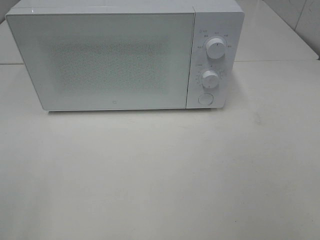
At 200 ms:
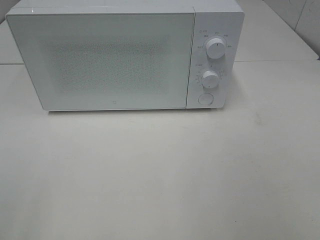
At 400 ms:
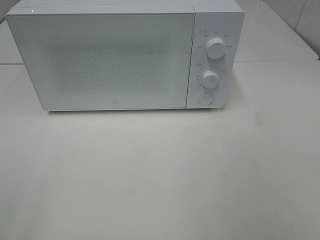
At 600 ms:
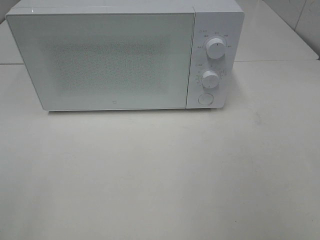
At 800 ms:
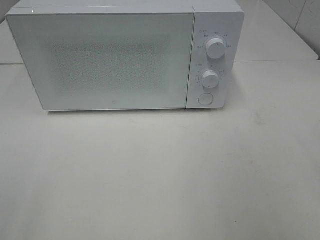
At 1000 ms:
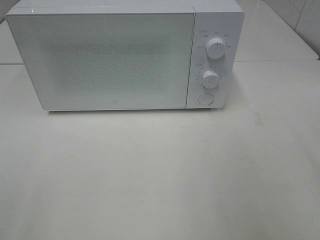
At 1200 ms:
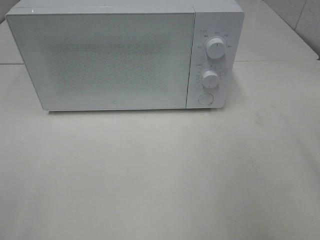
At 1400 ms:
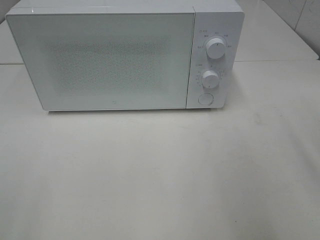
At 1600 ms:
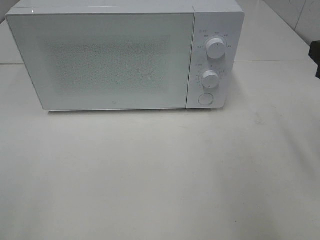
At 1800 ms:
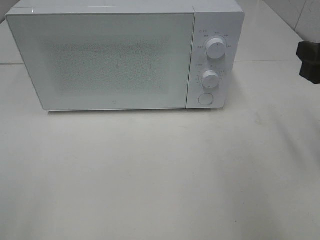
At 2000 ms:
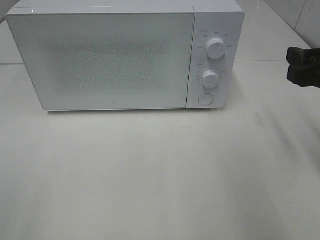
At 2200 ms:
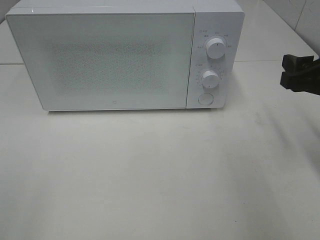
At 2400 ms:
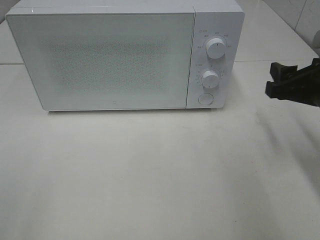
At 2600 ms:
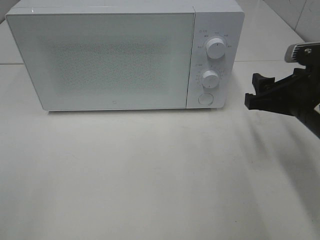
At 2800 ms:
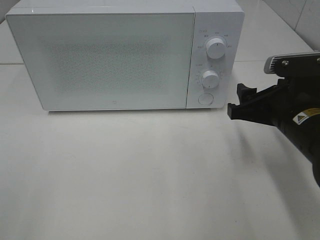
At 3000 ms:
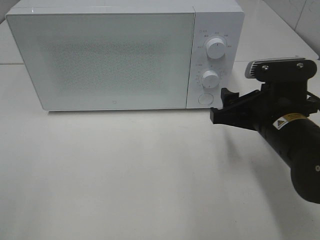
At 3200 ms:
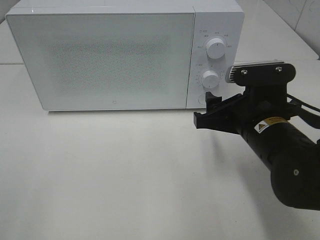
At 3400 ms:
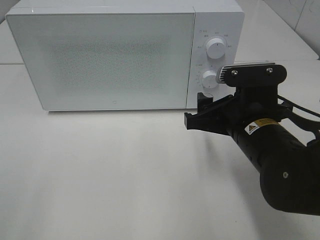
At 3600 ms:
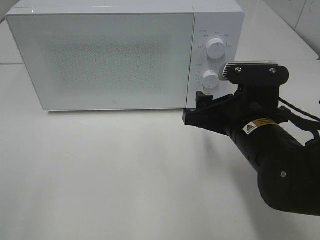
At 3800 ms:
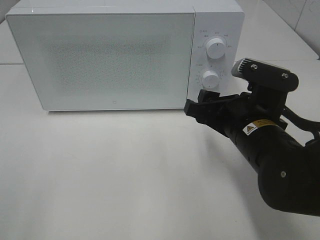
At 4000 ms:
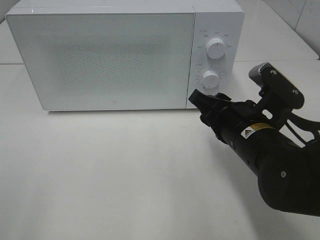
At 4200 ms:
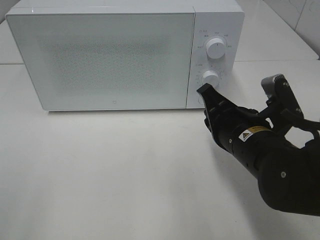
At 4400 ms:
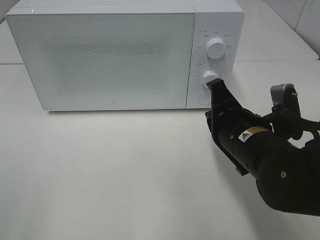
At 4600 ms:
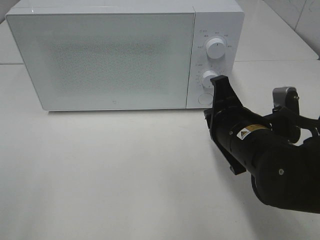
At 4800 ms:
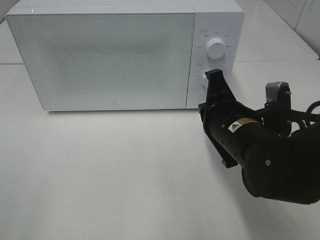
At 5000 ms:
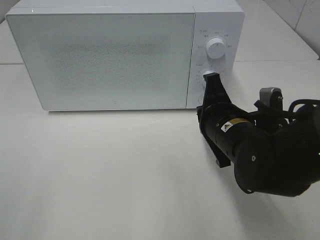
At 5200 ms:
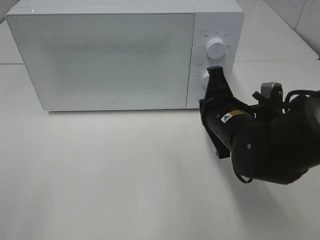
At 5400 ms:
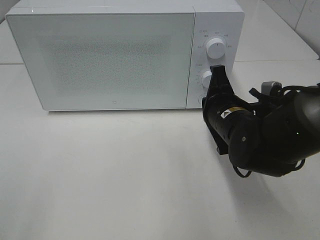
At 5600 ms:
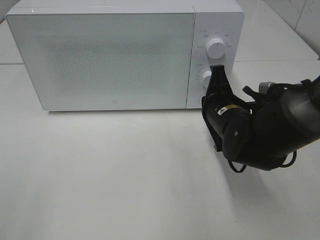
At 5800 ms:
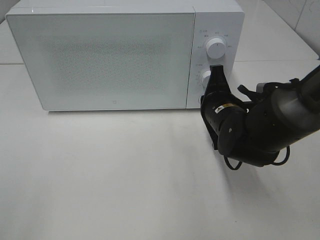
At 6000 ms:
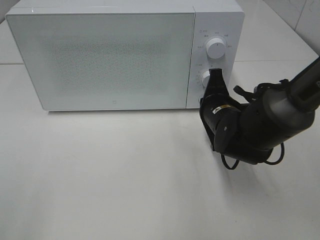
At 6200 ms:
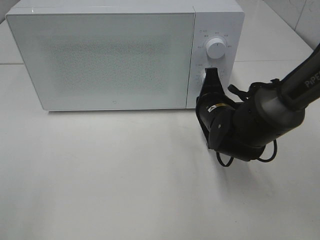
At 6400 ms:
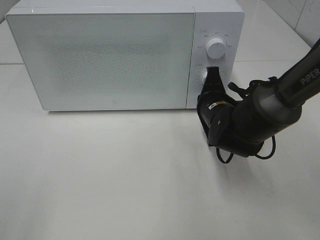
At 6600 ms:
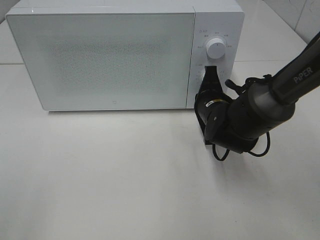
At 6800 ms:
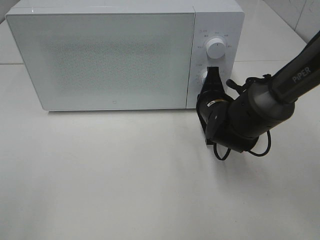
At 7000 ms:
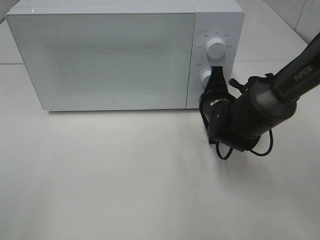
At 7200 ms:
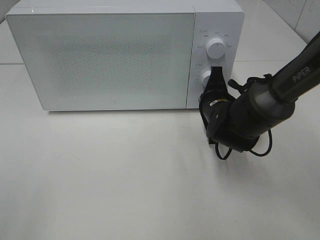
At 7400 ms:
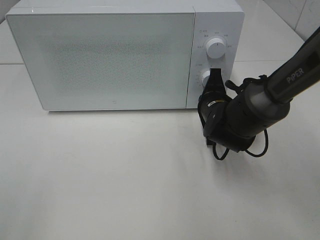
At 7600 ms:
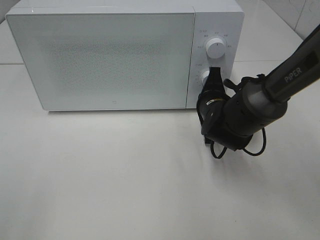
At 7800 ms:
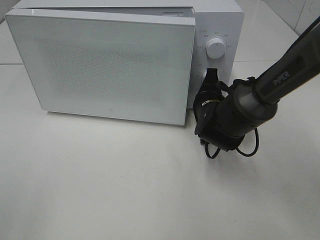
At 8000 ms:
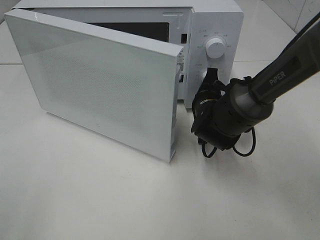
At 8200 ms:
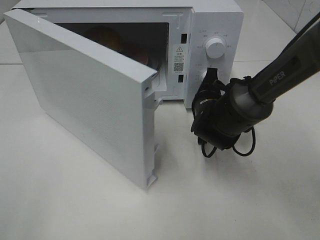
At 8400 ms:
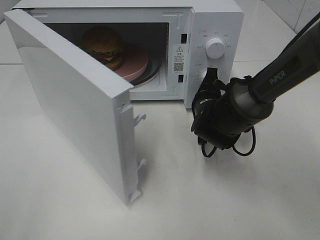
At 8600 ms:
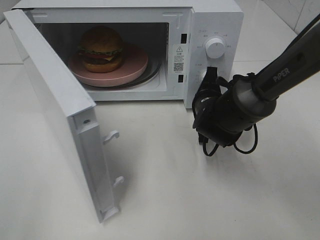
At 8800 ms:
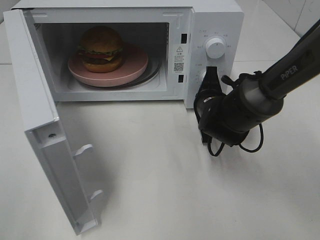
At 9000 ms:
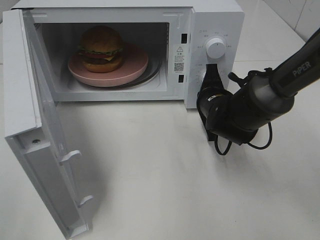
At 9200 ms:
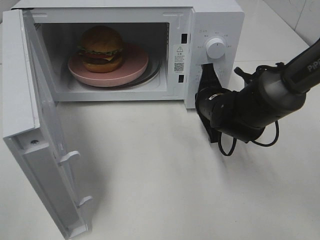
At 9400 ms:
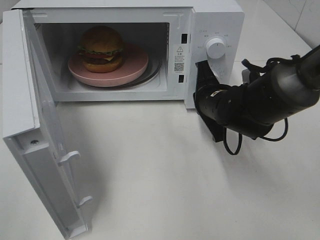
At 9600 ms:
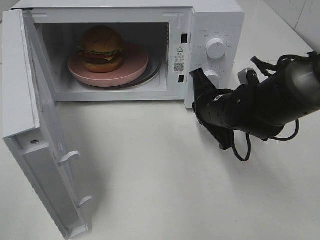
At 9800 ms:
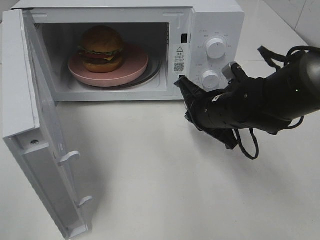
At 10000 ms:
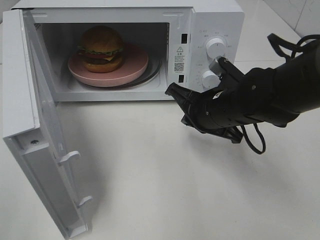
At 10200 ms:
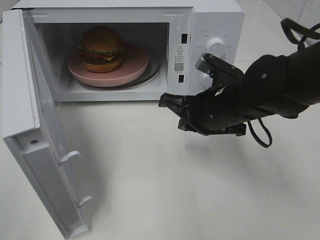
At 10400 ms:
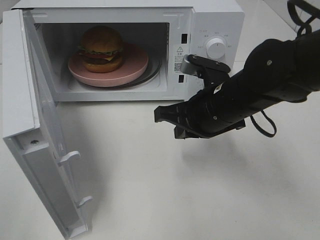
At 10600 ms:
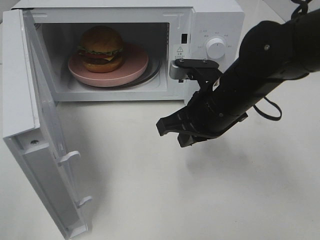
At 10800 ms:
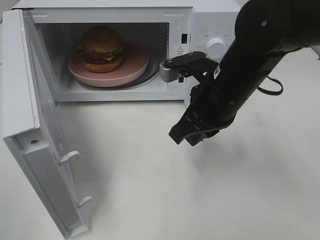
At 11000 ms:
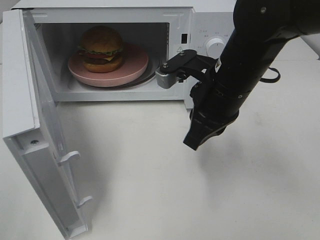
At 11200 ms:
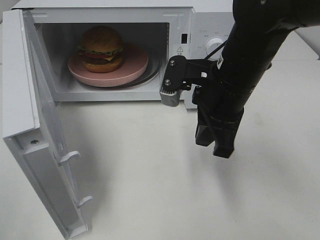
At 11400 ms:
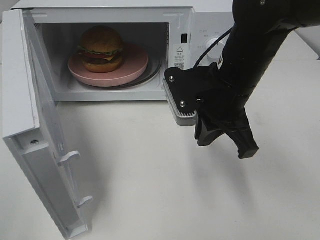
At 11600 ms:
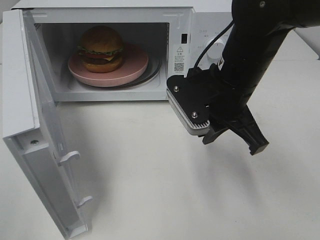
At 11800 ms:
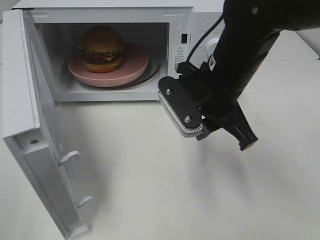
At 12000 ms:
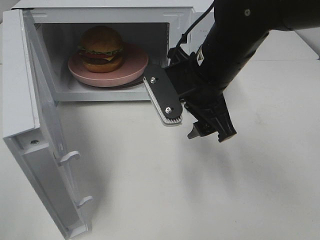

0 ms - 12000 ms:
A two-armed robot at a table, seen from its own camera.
Task of the whole recording: Heat the burger.
Step, 0 ms - 9200 ms: Right hand: press the switch.
1600 ms - 3000 ms: The right gripper travels downward and to the left by about 15 cm.
3000 ms - 4400 ms: The right gripper closes its fingers.
4400 ms - 6000 ms: The right gripper is displaced forward by about 10 cm.
6000 ms - 7600 ms: The grippers make only small movements.
9000 ms - 10400 ms: The right gripper shifts approximately 10 cm upward and backward.
10400 ms - 12000 ms: The right gripper moves upward, approximately 5 cm, and opens up.

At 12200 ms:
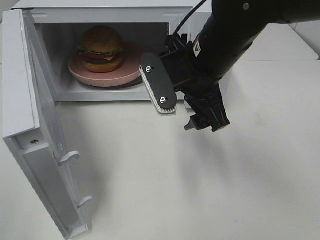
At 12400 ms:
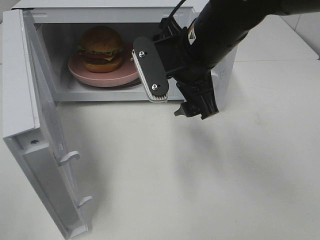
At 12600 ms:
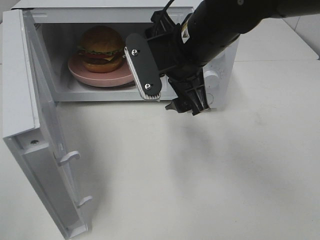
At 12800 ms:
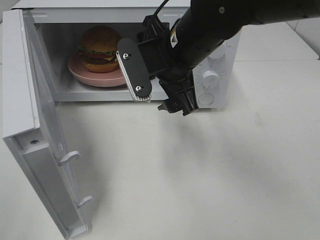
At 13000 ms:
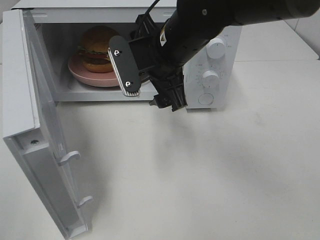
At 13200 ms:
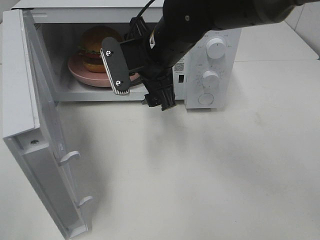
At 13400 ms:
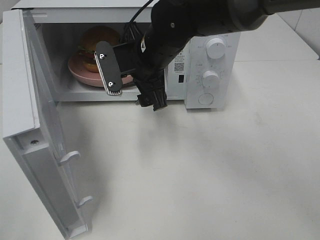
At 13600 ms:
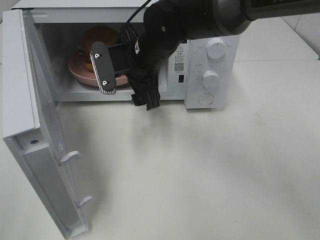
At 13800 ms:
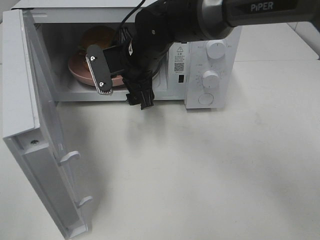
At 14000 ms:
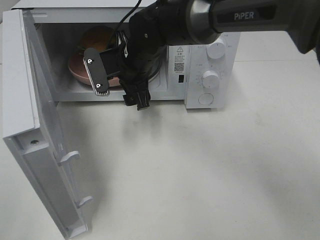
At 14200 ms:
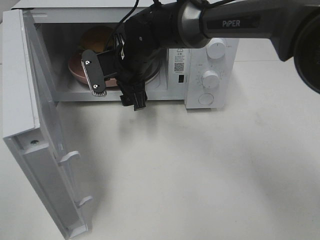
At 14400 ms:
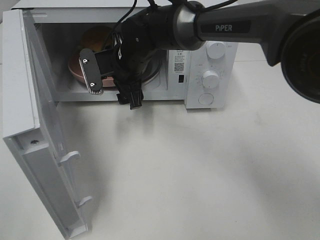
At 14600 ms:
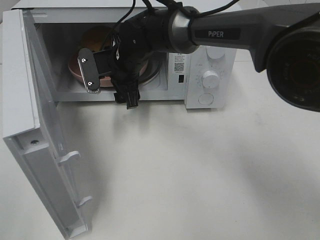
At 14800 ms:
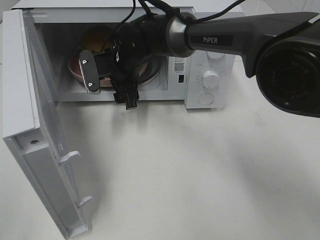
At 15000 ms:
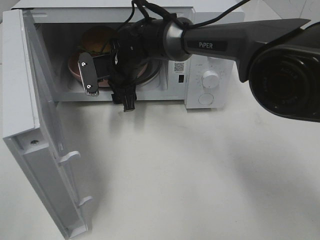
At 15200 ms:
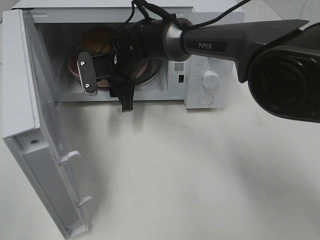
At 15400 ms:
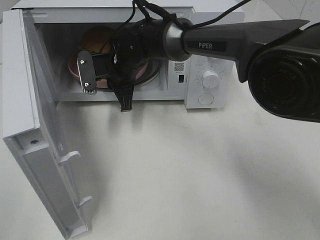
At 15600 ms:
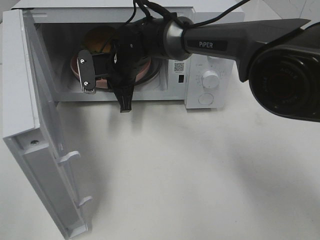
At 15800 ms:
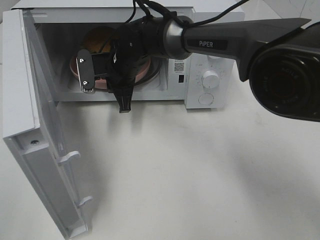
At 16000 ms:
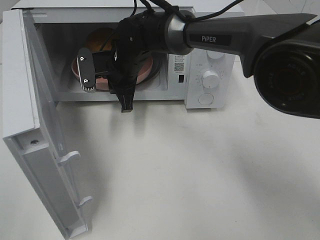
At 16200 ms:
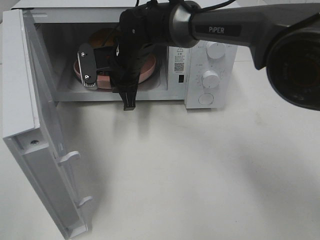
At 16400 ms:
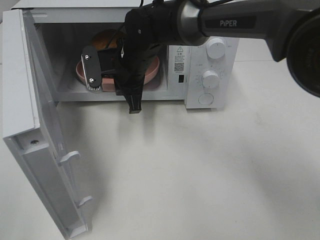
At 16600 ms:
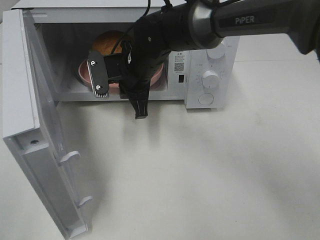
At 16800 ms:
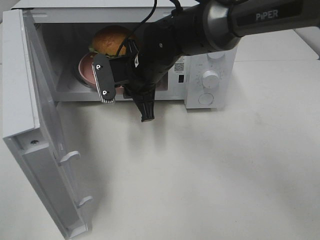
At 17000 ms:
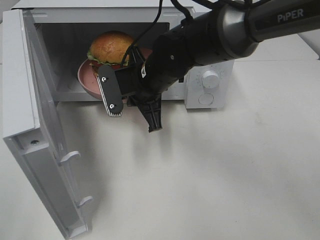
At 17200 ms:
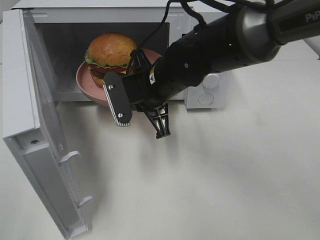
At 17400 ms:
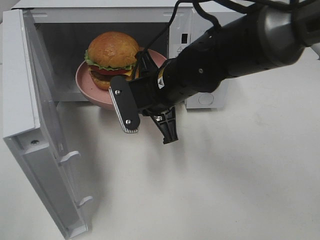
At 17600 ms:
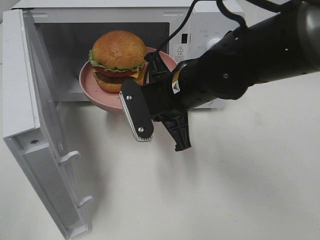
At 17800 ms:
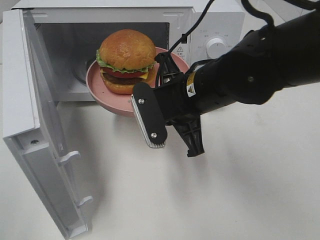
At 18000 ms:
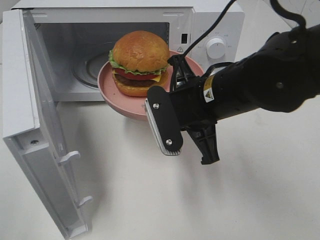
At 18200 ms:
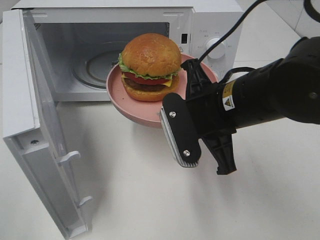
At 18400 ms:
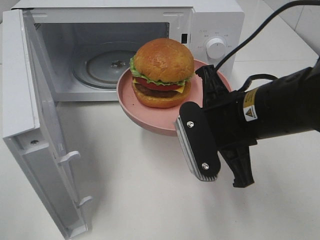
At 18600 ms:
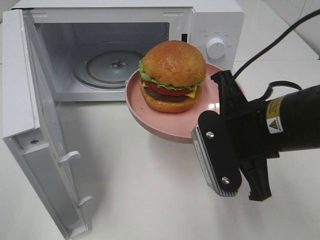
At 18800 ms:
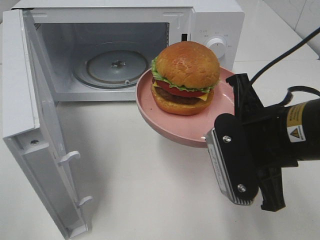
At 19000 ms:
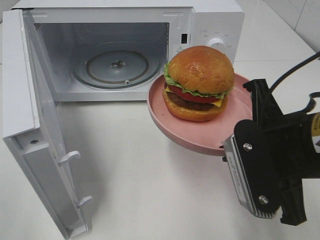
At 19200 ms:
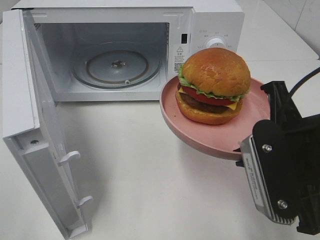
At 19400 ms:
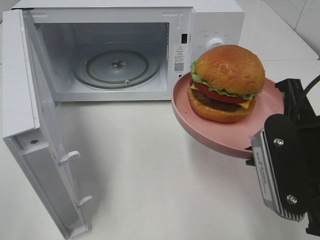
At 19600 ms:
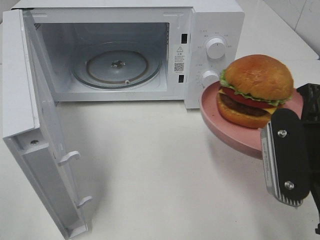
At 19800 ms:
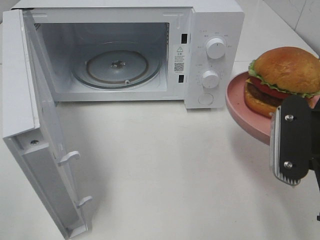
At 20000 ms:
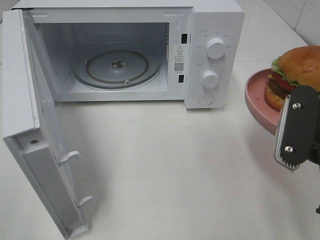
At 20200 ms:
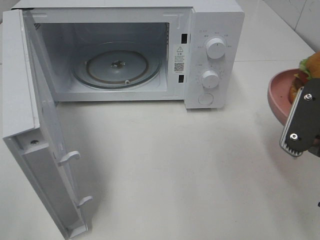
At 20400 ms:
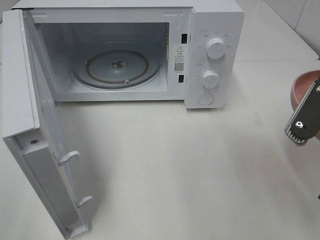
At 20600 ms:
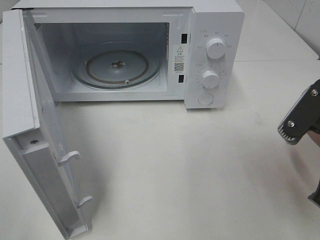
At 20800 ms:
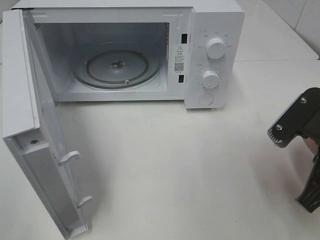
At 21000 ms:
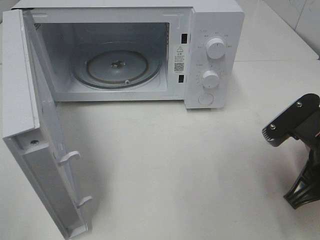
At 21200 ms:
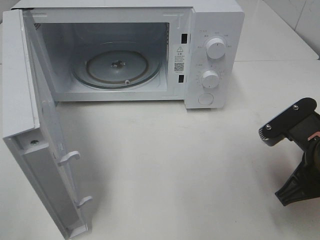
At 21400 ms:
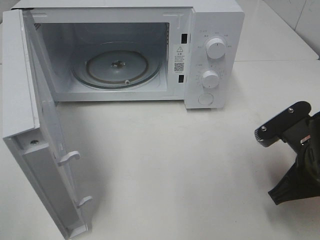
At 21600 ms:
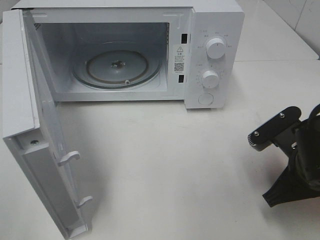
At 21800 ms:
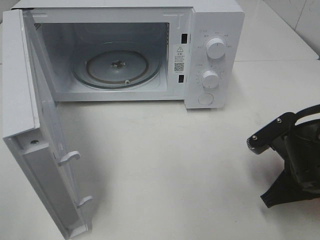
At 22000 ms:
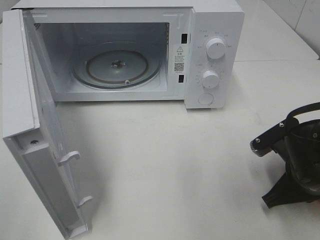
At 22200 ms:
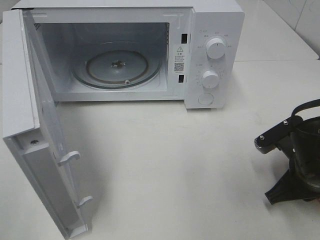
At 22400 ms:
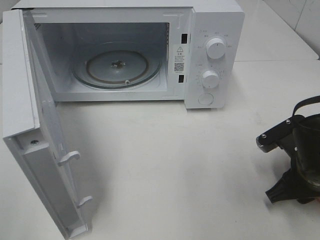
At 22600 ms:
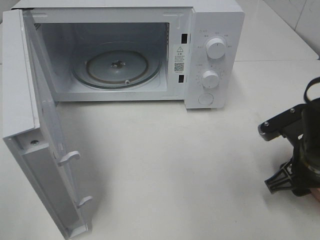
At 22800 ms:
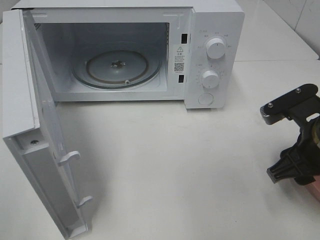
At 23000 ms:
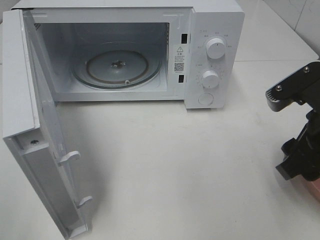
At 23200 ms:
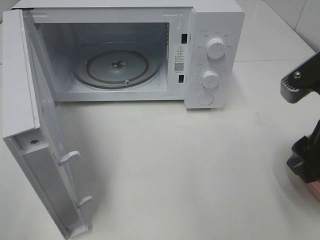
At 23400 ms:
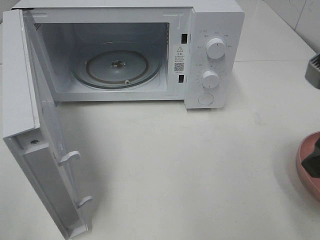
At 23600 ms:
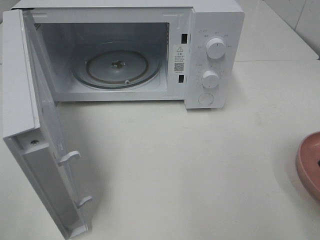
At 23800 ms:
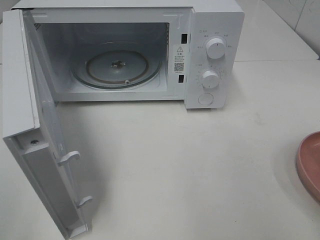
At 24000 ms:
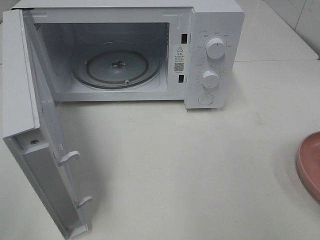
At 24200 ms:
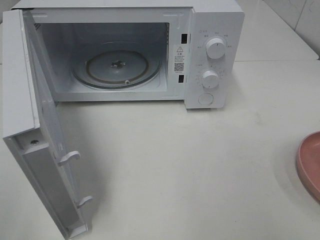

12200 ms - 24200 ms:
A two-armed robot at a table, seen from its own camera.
Task of the whole recording: Heat the burger.
Step, 12200 ms - 15400 ms: Right hand: grab the plate with the hamburger.
Step, 15600 ms - 22200 ms: Right hand: place the plate on the table.
12200 ms - 13800 ms: The right gripper is displaced forward, to the left and downward by roughly 15 cm.
13800 ms - 15200 ms: The right gripper changes place by approximately 5 cm, and closes.
15200 ms - 16600 ms: The right gripper changes place by some 5 cm, and closes.
16600 ms - 18200 ms: The right gripper heads backward and to the right, covering roughly 20 cm.
18200 ms - 19800 ms: The right gripper shifts about 15 cm to the right and backward.
19800 ms - 21200 ms: The right gripper is displaced downward by approximately 5 cm.
21200 ms - 22600 ms: The right gripper opens its fingers.
22600 ms - 24200 ms: The right gripper shifts roughly 25 cm upward and backward.
